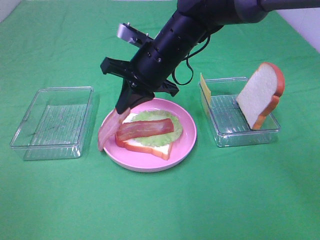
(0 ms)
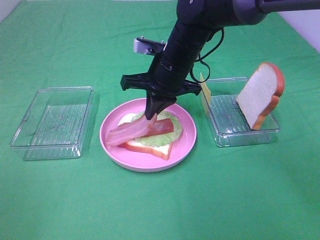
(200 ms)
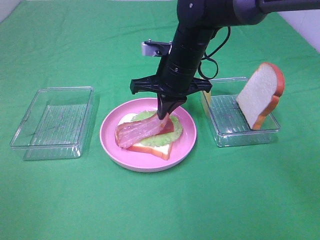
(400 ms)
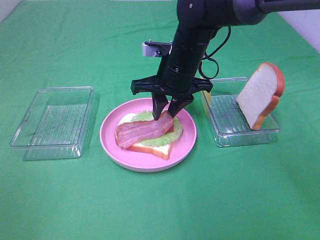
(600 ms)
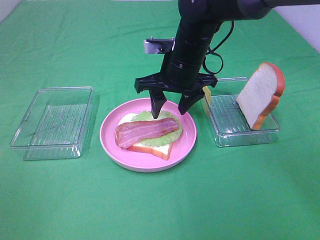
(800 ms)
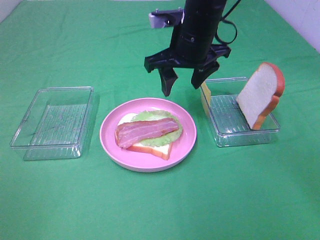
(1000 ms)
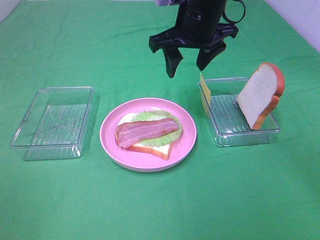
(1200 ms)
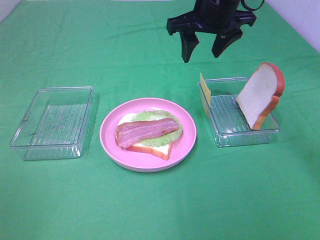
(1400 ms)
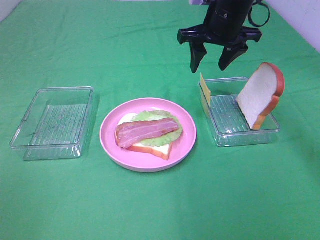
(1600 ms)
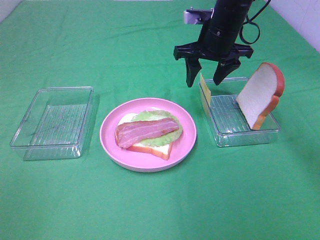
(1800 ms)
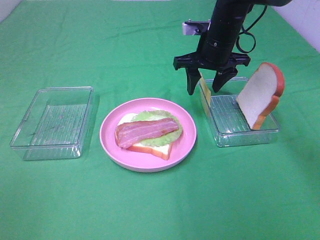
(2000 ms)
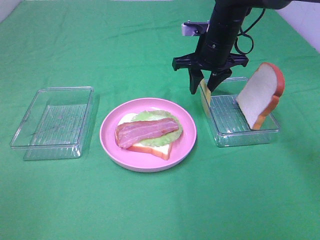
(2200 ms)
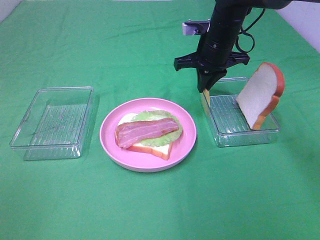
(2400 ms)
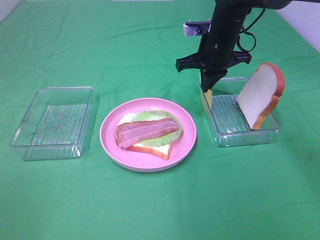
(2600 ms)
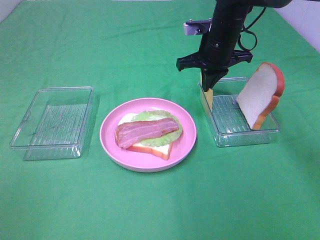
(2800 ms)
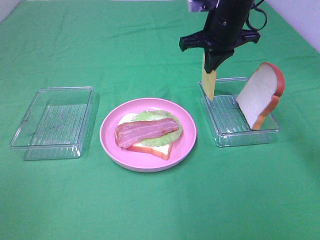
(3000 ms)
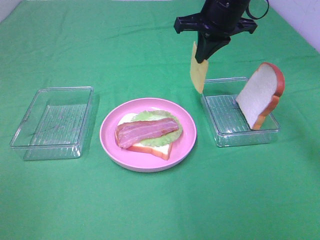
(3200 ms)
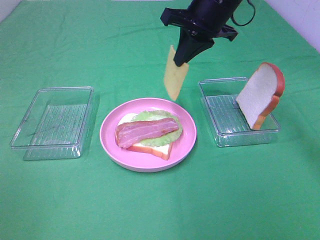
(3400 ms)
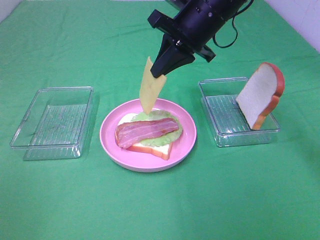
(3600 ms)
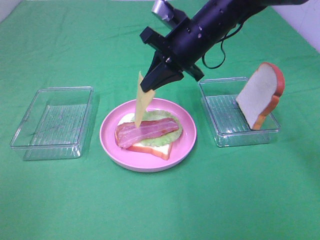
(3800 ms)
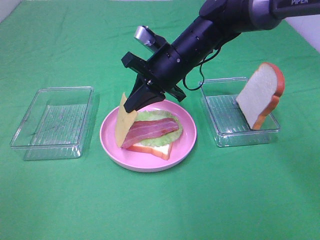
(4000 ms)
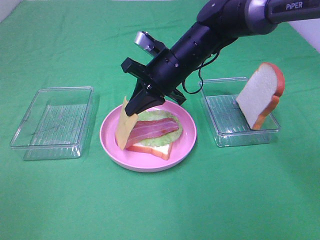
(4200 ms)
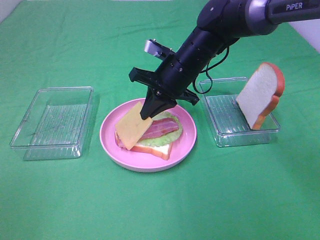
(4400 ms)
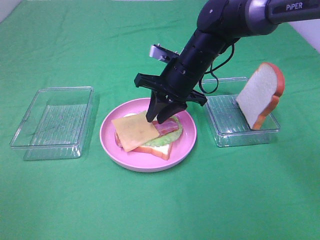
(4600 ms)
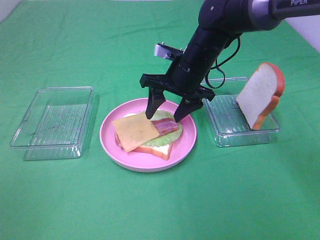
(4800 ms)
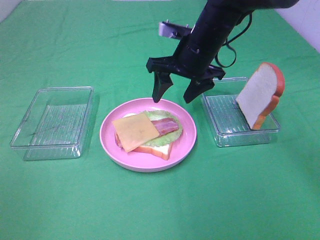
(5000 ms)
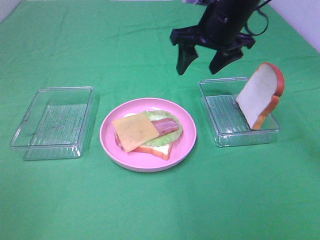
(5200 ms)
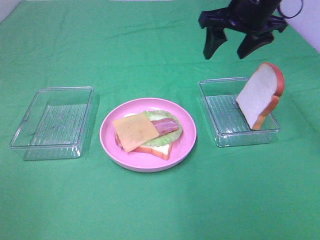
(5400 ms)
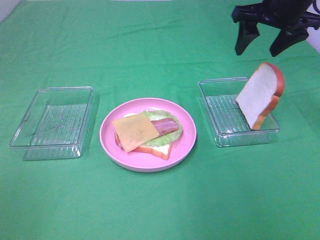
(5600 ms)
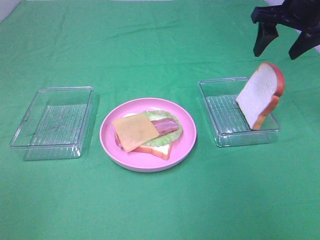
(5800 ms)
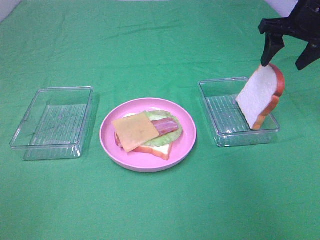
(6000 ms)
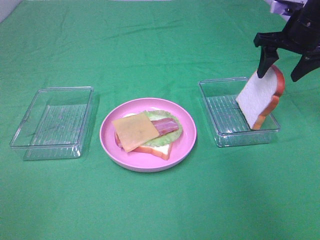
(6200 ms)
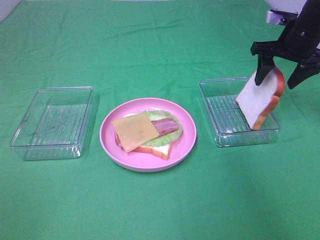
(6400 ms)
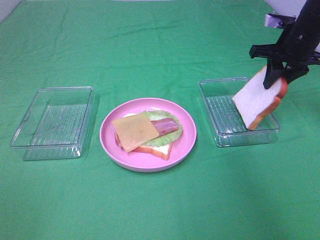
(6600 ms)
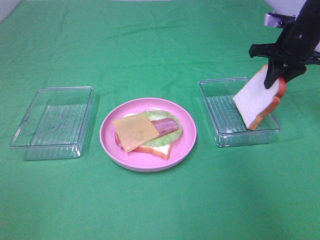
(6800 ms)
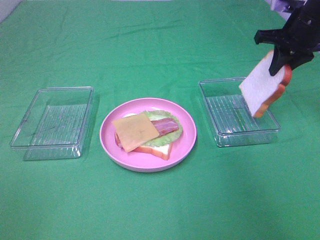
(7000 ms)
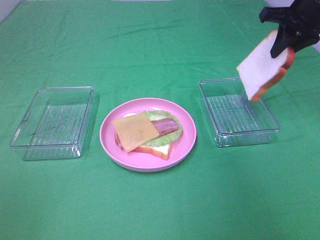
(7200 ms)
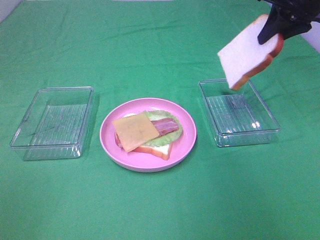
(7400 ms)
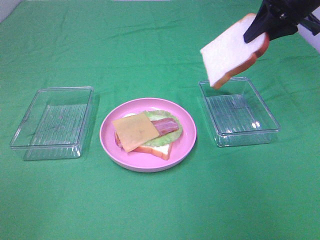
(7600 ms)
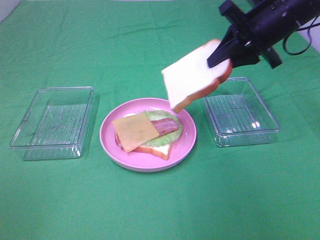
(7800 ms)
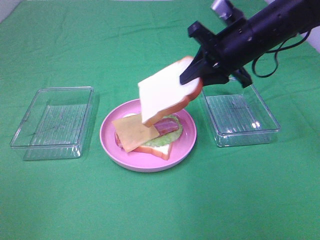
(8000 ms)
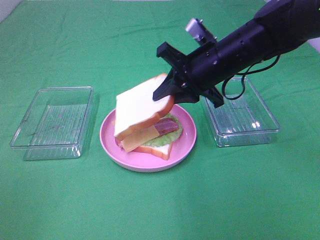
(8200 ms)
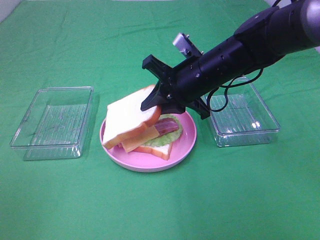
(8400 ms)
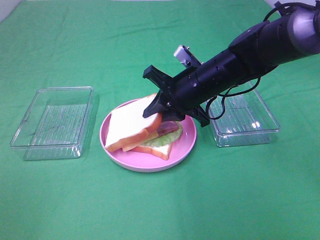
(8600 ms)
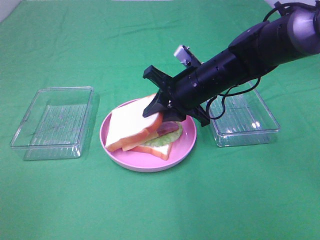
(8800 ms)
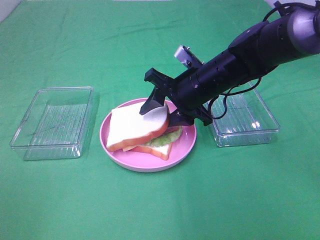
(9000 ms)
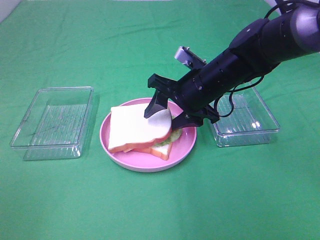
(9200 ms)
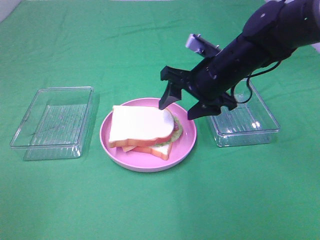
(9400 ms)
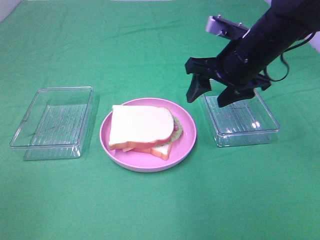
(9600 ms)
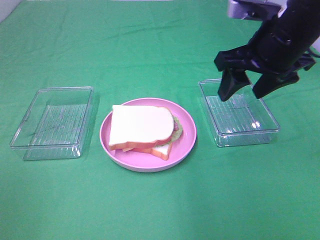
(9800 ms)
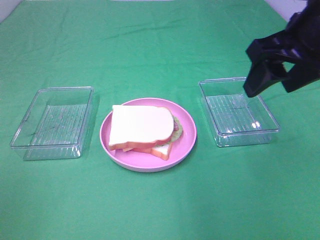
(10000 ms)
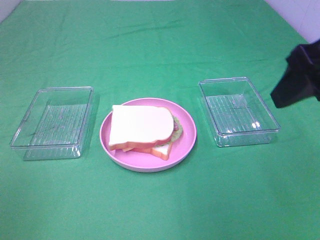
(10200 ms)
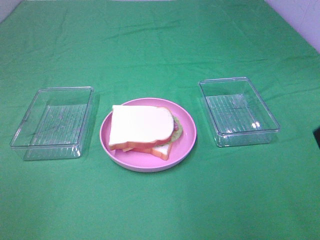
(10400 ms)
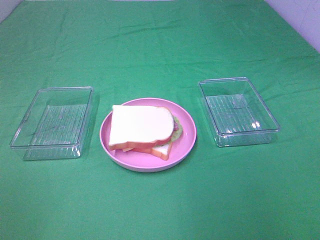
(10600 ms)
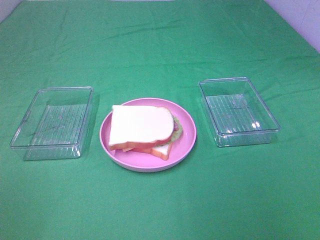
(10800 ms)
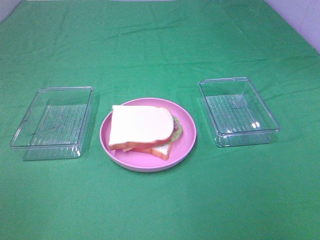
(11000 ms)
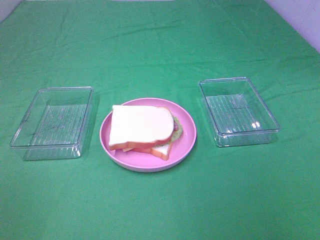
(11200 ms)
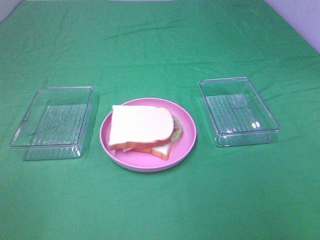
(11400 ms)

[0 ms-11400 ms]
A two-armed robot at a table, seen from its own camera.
Task of the whole recording: Make sandwiches.
Step, 1200 ms to 2600 ms: Right hand:grab the cheese slice.
Step, 2800 ms to 4800 ms: Right hand:place the cheese slice on top of the bacon.
Step, 5000 ms to 7000 ms: Right hand:grab the bread slice.
Step, 7200 ms to 9400 ms: Right hand:place the bread slice on the cheese slice.
0 ms to 1400 ms: The right gripper travels upward and to the right by roughly 15 cm, and opens up.
1400 ms to 2800 ms: The right gripper travels downward by some 10 cm, and closes.
2800 ms to 4200 ms: The right gripper moves to the left and backward, about 10 cm, and moves about 10 cm upward and comes back.
4200 ms to 5600 ms: The right gripper travels to the right and upward by some 20 cm, and opens up.
5600 ms to 7200 ms: The right gripper reaches some 10 cm downward, then returns, and closes.
7200 ms to 8600 ms: The right gripper moves to the left and downward, some 25 cm.
8600 ms to 10000 ms: The right gripper shifts about 20 cm upward, to the right and backward, and opens its fingers.
10000 ms to 11400 ms: The right gripper goes some 25 cm backward.

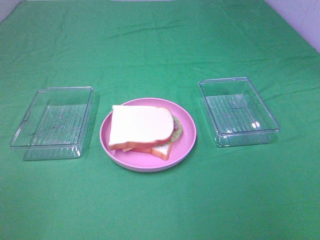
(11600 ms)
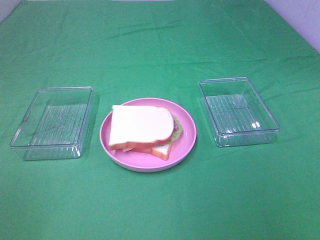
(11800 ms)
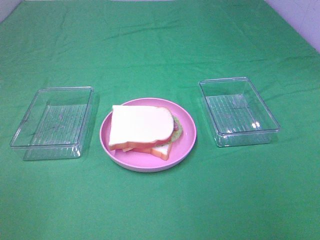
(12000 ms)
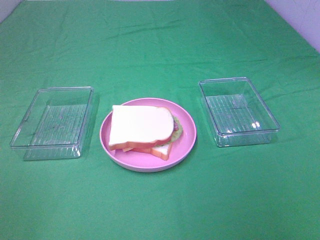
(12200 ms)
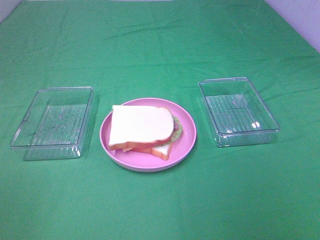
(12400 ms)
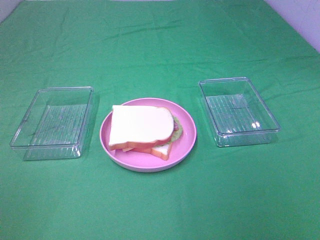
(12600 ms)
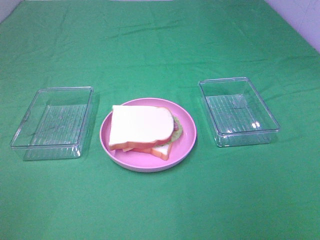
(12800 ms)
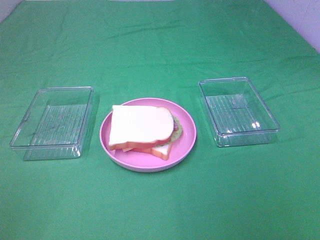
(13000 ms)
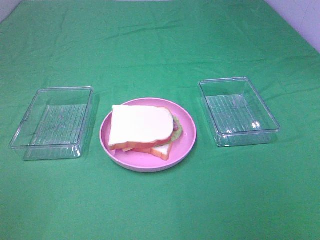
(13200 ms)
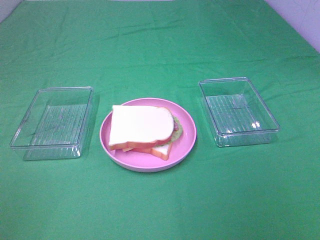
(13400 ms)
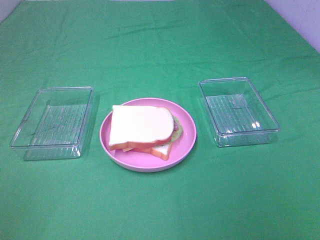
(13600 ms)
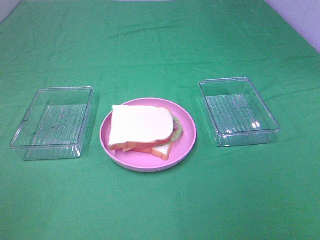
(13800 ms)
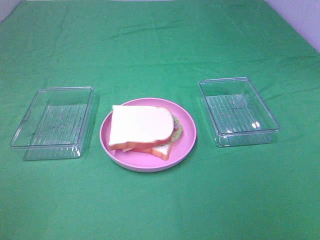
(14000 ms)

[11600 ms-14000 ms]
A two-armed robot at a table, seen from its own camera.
Task of the whole recording: Make sandwiches.
12800 ms to 14000 ms: Both grippers stay about where they are.

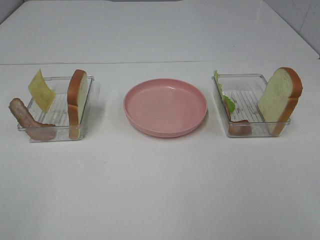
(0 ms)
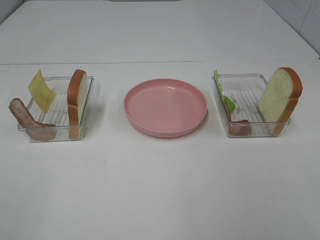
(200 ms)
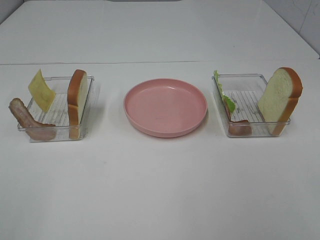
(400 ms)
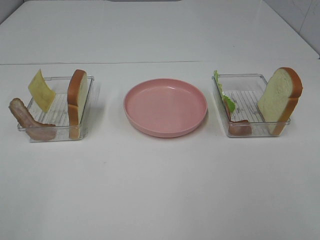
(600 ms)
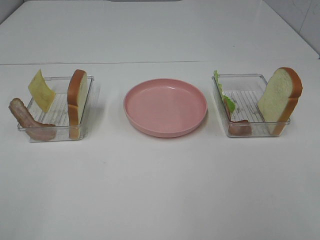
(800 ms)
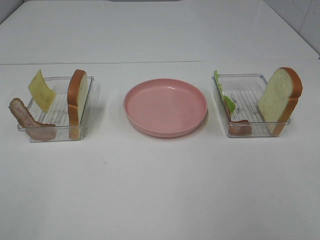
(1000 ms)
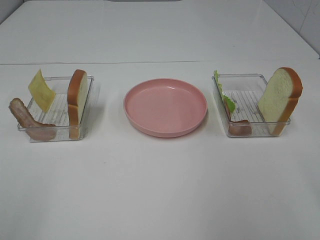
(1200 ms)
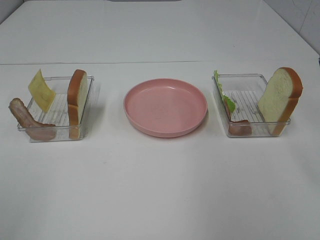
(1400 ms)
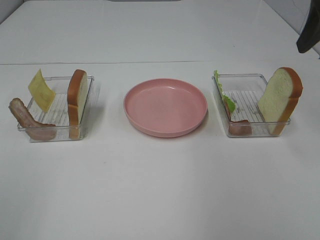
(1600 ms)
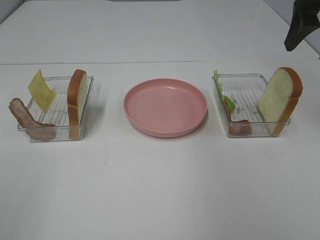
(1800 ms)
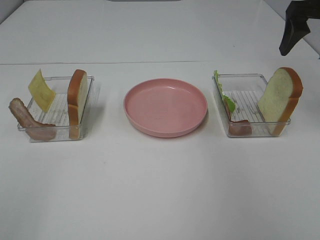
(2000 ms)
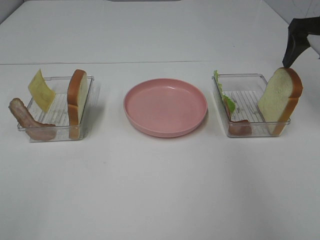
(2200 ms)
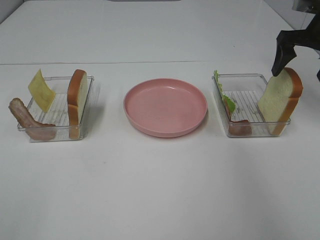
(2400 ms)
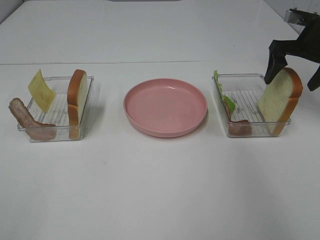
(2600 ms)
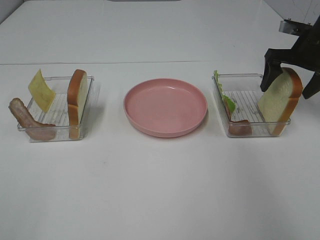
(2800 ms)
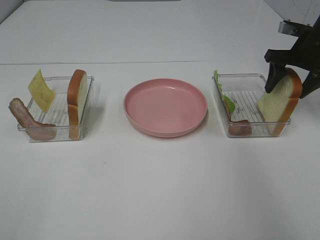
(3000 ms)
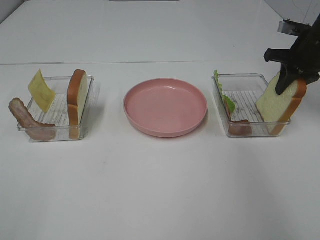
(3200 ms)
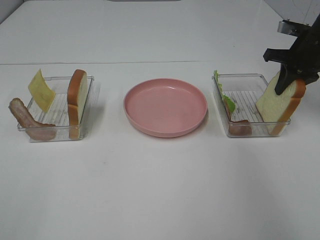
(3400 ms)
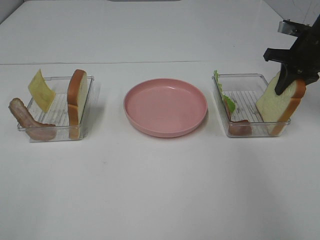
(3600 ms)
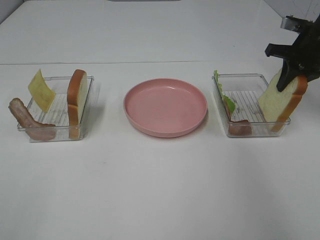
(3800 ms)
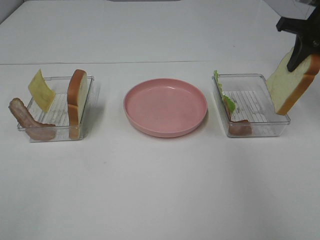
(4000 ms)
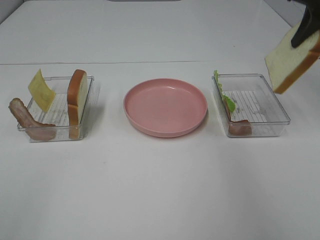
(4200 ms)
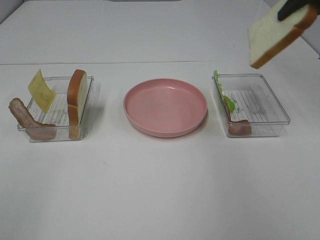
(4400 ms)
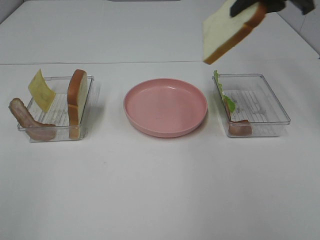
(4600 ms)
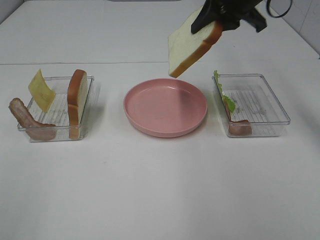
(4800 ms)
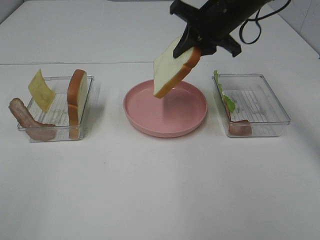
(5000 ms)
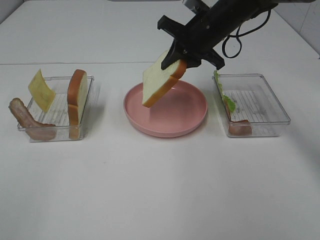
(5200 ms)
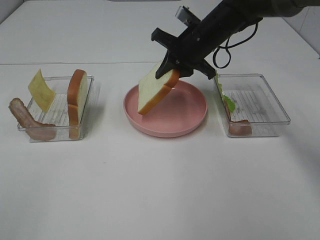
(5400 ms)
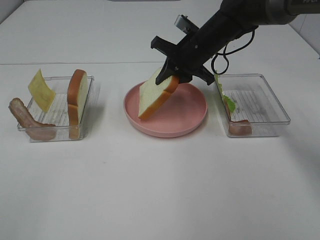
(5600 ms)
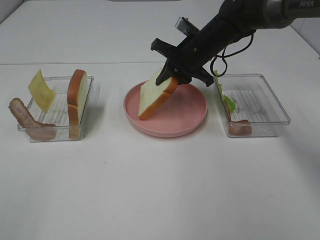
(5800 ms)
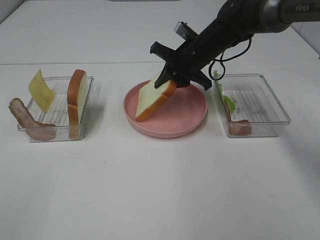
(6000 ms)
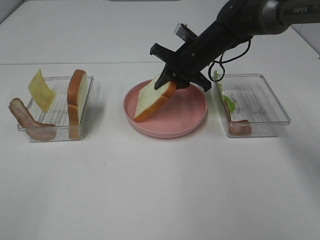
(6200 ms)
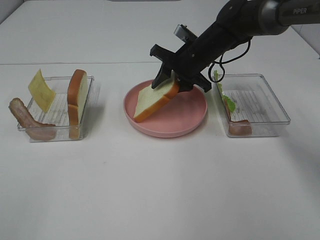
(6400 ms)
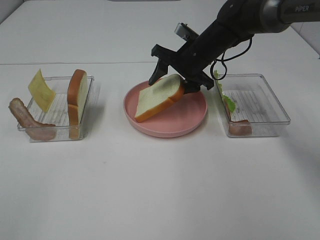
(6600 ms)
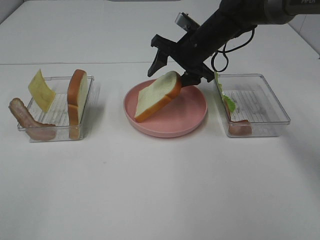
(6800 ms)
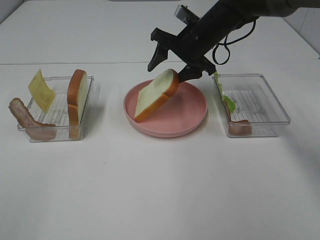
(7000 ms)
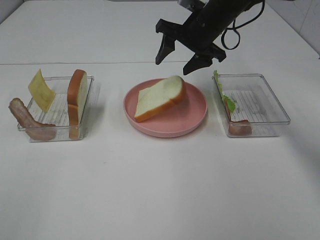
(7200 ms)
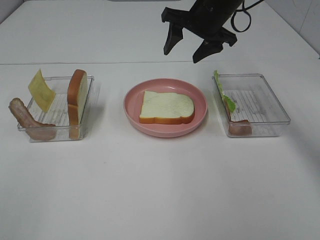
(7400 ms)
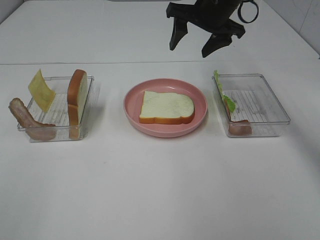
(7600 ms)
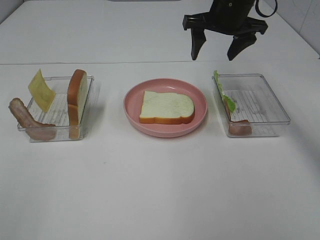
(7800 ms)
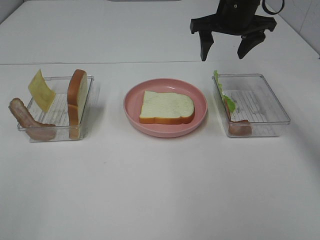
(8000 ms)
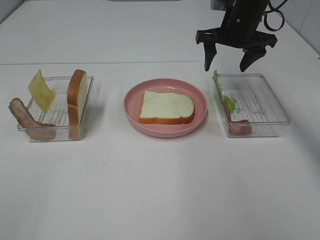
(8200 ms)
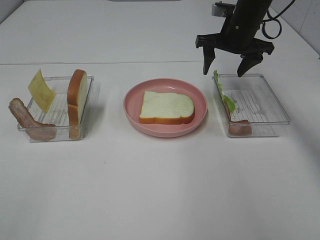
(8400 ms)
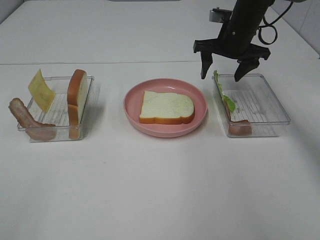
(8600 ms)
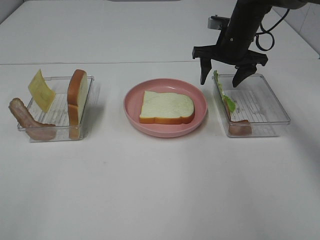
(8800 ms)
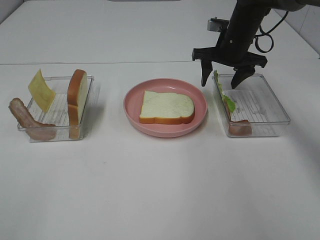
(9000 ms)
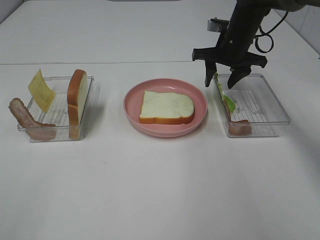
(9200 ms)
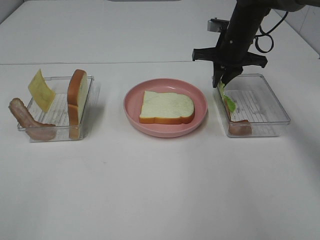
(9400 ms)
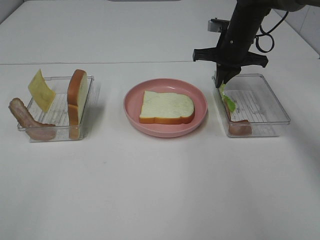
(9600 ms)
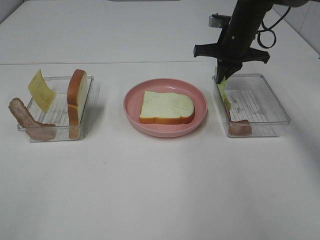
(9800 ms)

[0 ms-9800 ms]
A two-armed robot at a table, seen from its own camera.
Task of the whole recording: Make sandwiches.
Step, 0 ms to 3600 ms: Right hand:grab the bread slice.
Step, 3800 ms to 7200 ms: Right hand:place the bread slice on the plate.
Step, 7400 ms to 9800 ms: Right hand:grab the lettuce slice.
1400 ms to 2800 ms: The right gripper travels forward and downward by about 25 cm.
2800 ms to 4200 ms: The right gripper shifts approximately 15 cm upward, and closes up.
4200 ms to 5600 ms: The right gripper moves to the left and downward, about 25 cm.
5600 ms to 7000 ms: The right gripper opens up.
7000 ms to 8400 ms: The right gripper shifts about 5 cm to the right.
8400 ms to 9800 ms: The right gripper closes its fingers.
